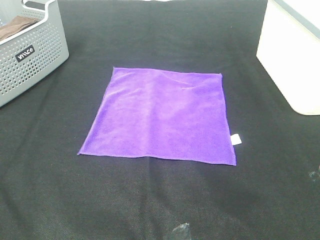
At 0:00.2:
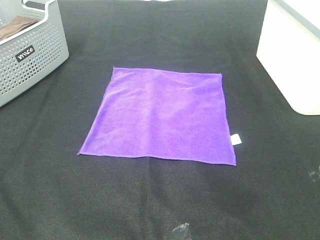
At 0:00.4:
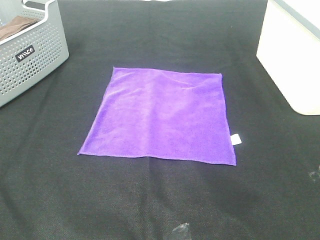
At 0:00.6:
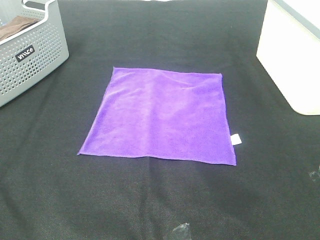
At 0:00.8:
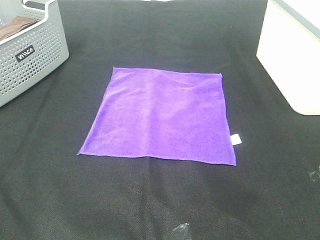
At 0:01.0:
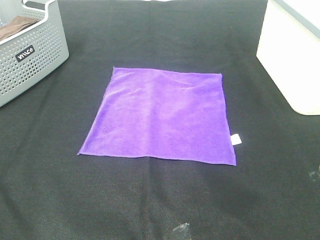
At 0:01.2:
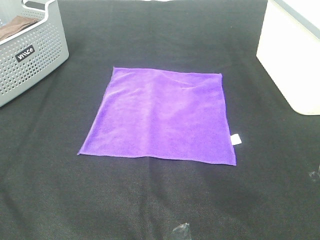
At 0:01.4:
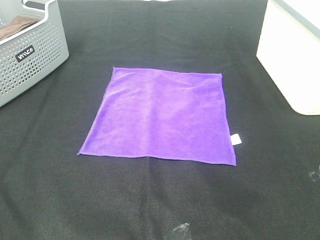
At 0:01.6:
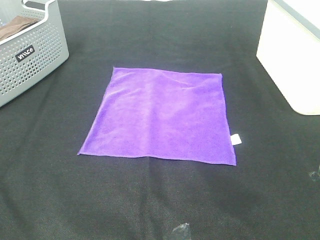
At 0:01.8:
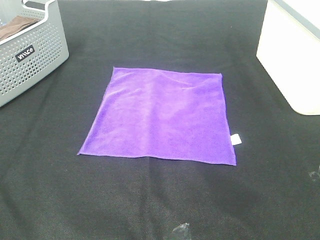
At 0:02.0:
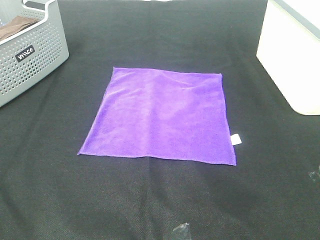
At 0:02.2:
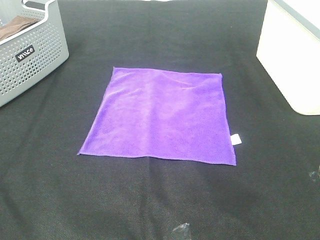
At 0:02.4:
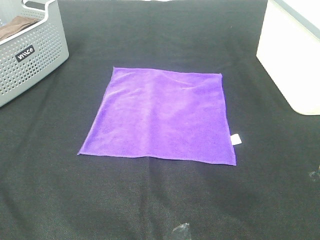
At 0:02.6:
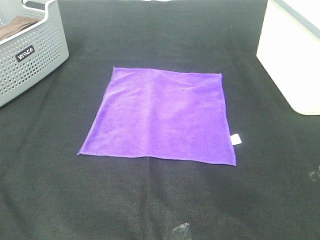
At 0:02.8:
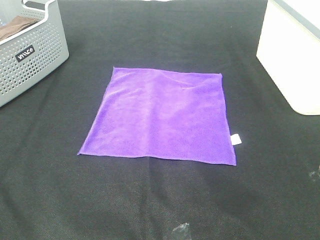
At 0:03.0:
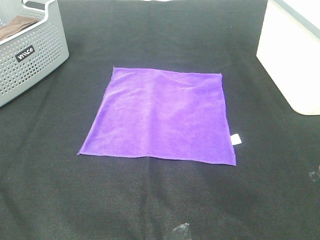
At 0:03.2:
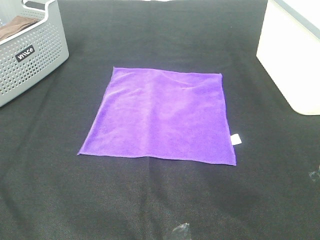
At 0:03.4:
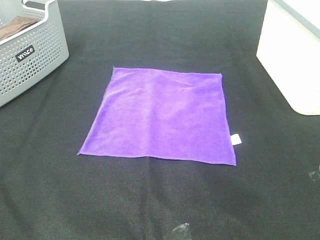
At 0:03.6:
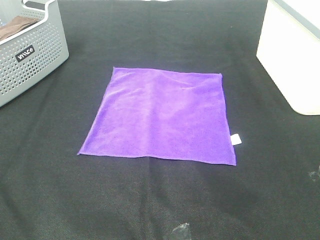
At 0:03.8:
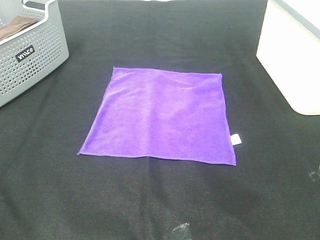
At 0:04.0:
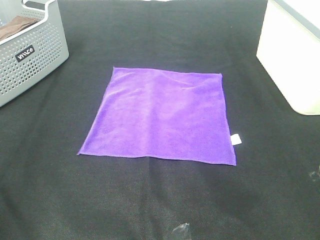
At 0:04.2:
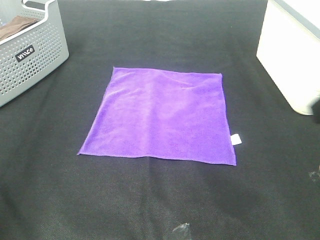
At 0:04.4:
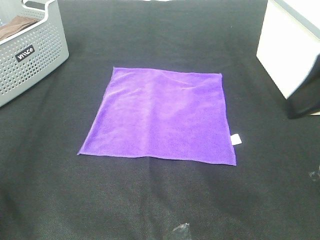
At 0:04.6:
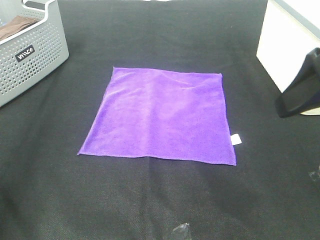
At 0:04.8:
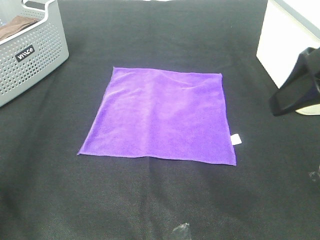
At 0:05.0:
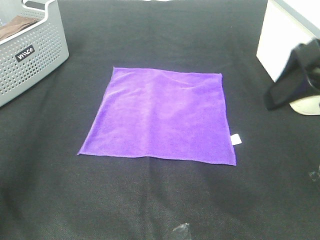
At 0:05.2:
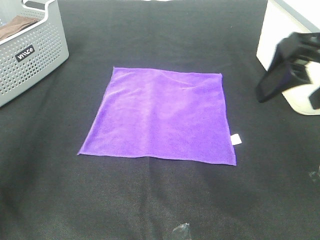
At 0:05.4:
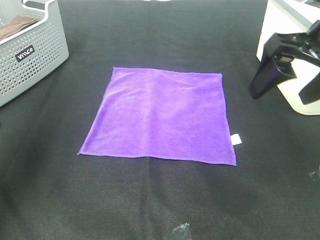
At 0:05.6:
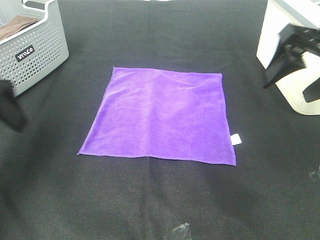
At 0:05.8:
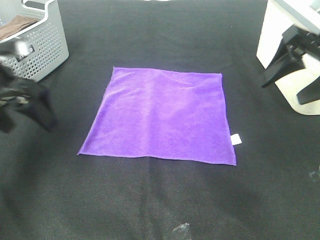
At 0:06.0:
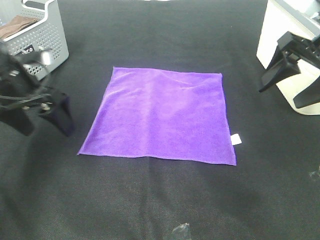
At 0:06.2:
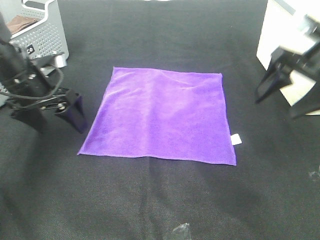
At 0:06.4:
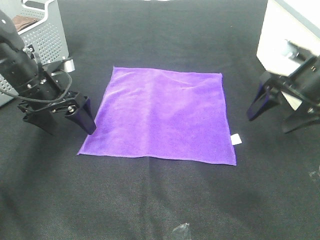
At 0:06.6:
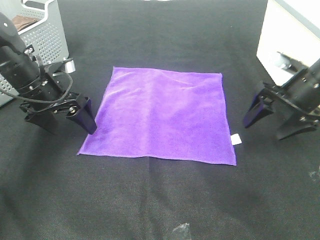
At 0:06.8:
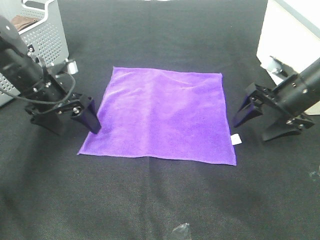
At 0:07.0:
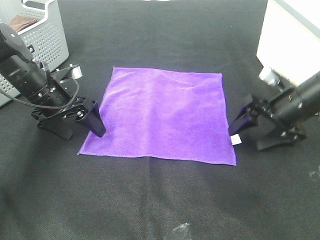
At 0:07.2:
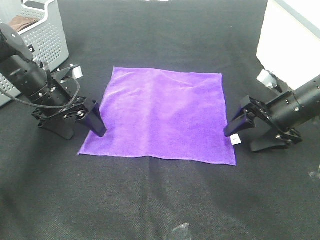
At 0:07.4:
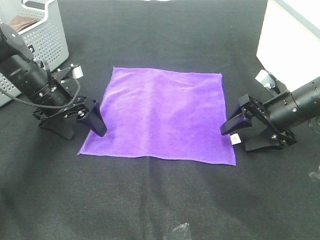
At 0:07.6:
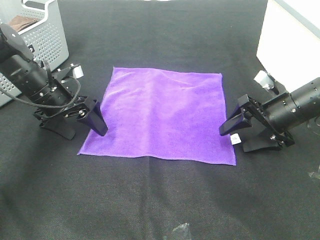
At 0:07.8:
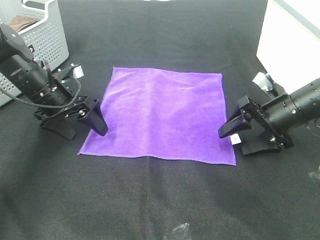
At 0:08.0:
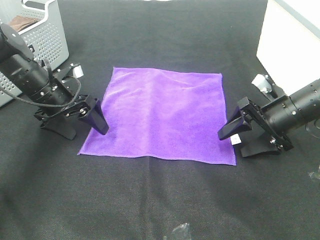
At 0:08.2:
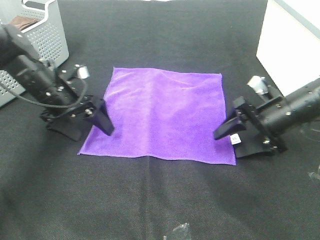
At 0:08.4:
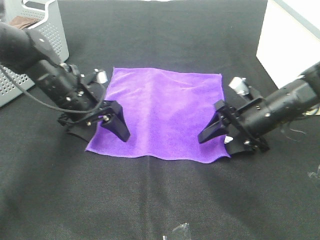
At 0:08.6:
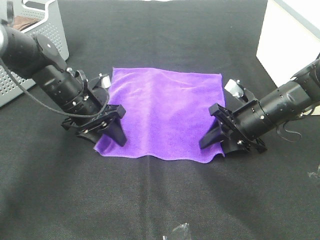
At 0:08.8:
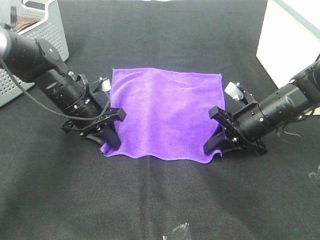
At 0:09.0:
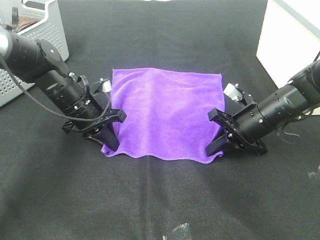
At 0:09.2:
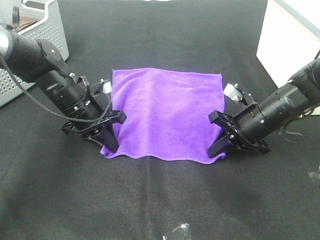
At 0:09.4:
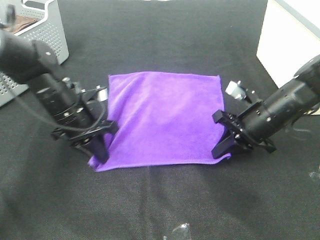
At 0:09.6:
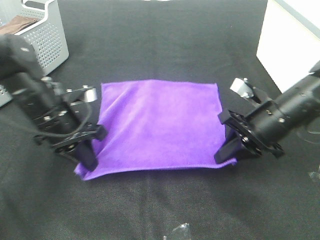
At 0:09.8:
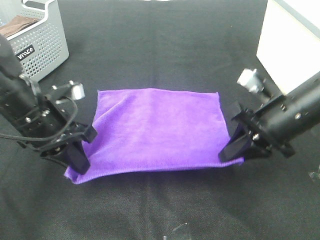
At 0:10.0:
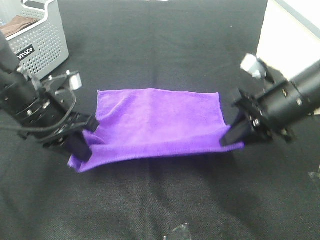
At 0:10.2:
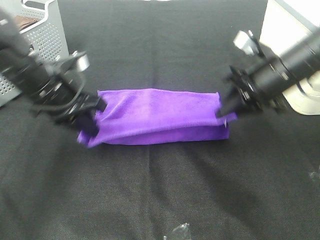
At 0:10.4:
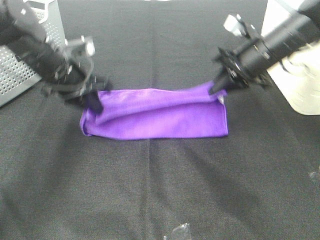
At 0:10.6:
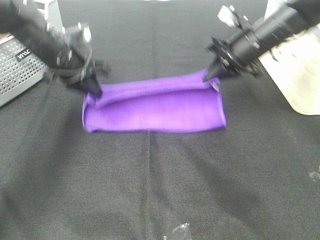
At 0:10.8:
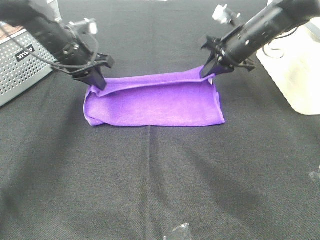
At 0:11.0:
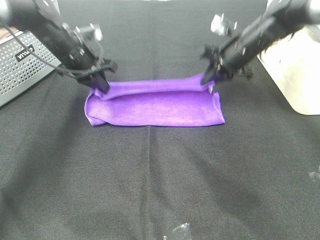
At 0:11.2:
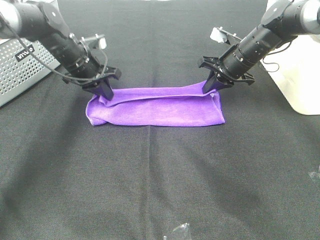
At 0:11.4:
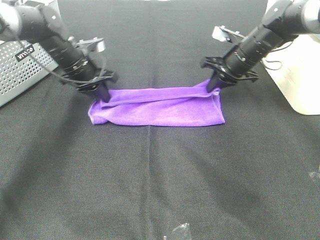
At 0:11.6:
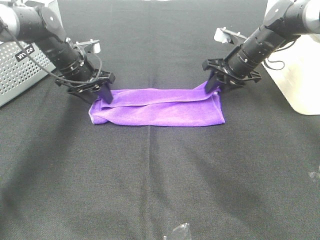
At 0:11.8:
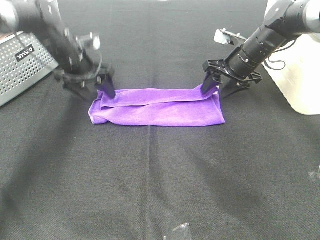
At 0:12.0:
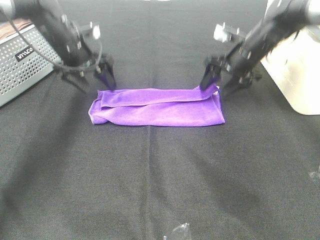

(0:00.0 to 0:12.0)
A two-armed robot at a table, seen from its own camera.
Task of the whole recording: Fold towels.
Step, 0:00.0 - 0:08.8: Left hand: grab the bottom left corner of purple towel.
Step, 0:00.0 - 0:08.8: Right hand: grab the bottom right corner of purple towel.
Step, 0:09.0 - 0:11.4: Left hand: fold the purple towel up.
Step, 0:09.0 - 0:11.4: Right hand: fold the purple towel up.
0:00.0 - 0:03.0: The two grippers keep their place.
0:03.0 - 0:04.4: The right gripper is displaced forward by roughly 15 cm, while the left gripper travels forward and upward by roughly 15 cm.
0:04.4 - 0:06.0: The right gripper travels forward and downward by roughly 15 cm, while the left gripper goes about 25 cm forward and downward.
0:06.0 - 0:07.6: The left gripper shifts some 5 cm downward. The right gripper goes some 15 cm downward.
0:07.6 - 0:09.0: The right gripper moves to the left, about 5 cm, and closes. The left gripper shifts some 5 cm to the right, and closes its fingers.
0:09.0 - 0:10.4: The left gripper travels upward by about 10 cm, and reaches about 10 cm backward, then returns. Meanwhile the right gripper moves upward and forward, about 15 cm.
0:10.4 - 0:12.0: The grippers both shift forward by approximately 10 cm. The right gripper opens; the left gripper opens.

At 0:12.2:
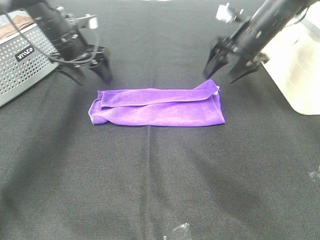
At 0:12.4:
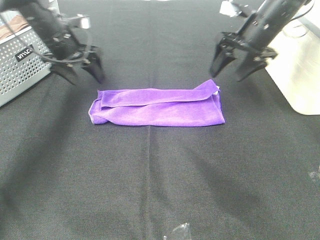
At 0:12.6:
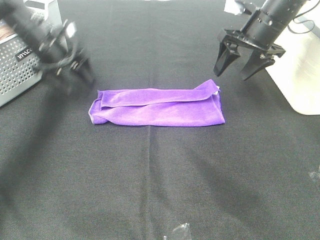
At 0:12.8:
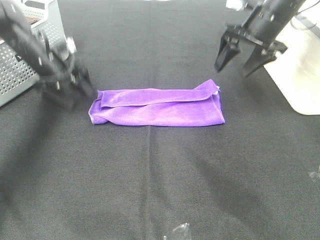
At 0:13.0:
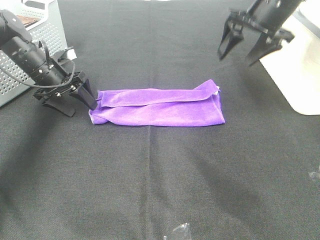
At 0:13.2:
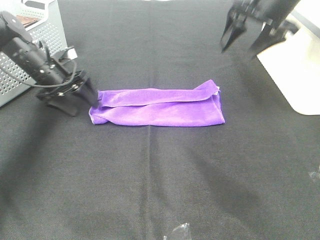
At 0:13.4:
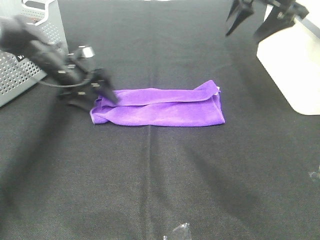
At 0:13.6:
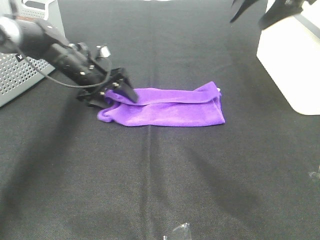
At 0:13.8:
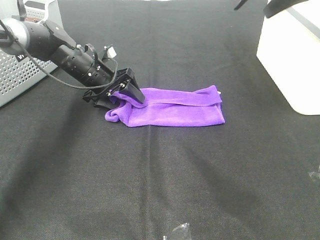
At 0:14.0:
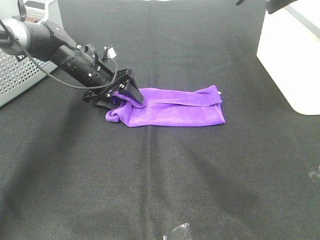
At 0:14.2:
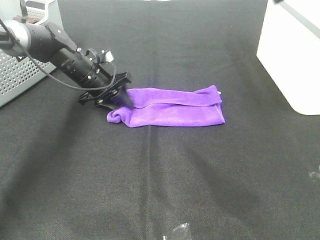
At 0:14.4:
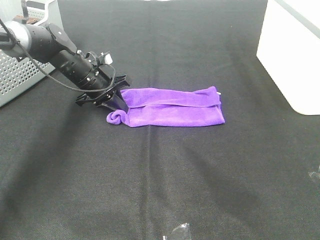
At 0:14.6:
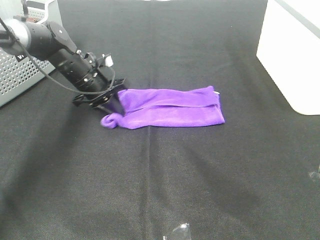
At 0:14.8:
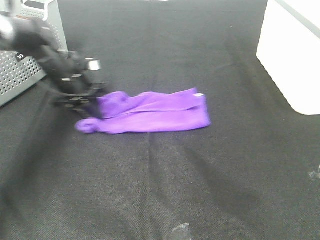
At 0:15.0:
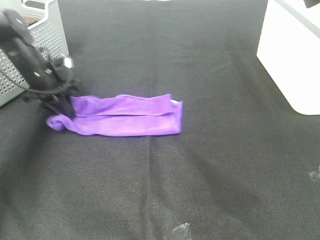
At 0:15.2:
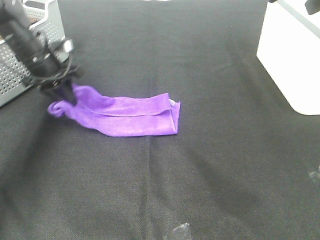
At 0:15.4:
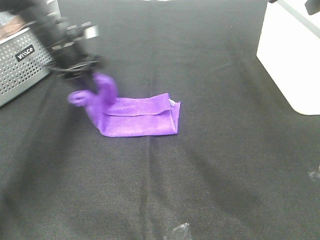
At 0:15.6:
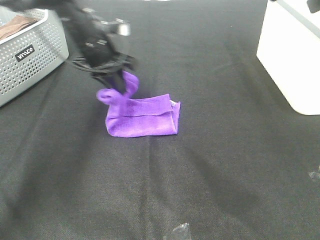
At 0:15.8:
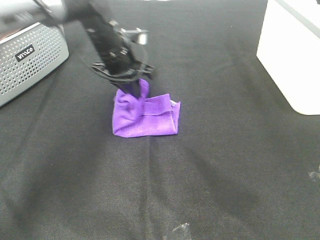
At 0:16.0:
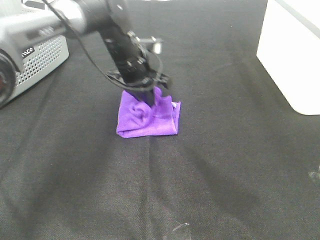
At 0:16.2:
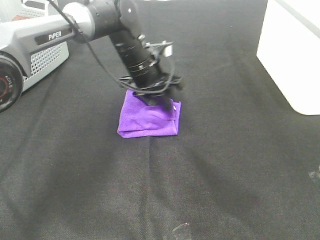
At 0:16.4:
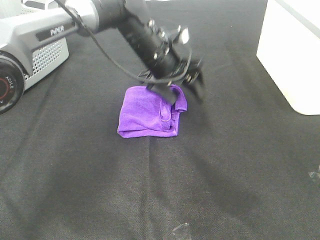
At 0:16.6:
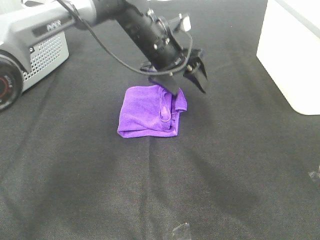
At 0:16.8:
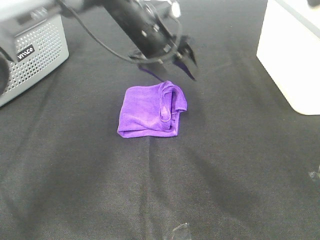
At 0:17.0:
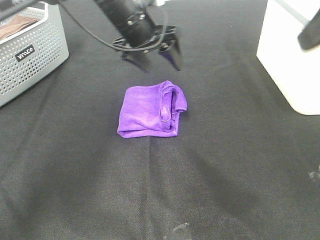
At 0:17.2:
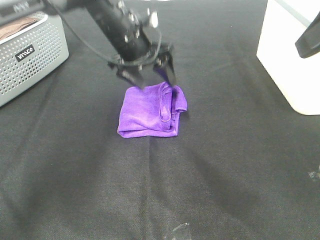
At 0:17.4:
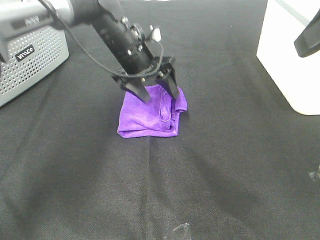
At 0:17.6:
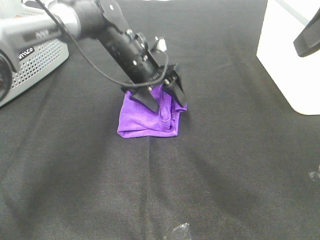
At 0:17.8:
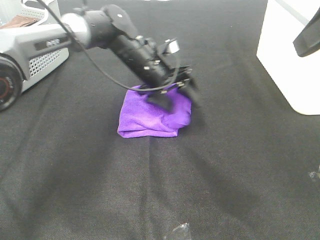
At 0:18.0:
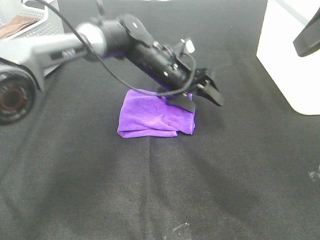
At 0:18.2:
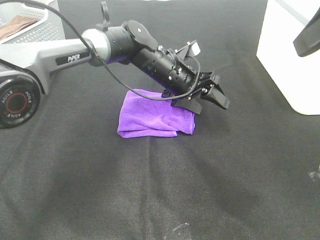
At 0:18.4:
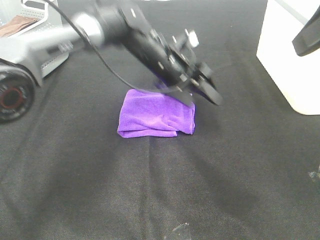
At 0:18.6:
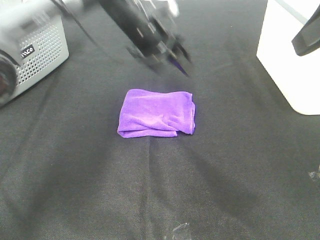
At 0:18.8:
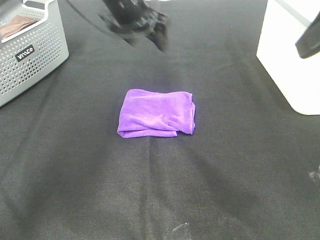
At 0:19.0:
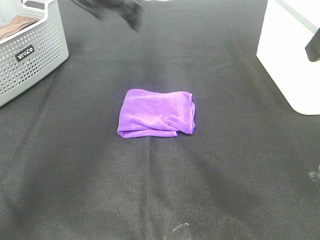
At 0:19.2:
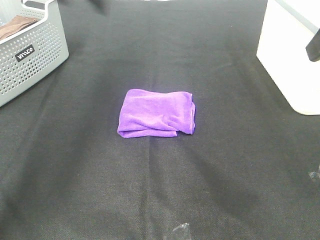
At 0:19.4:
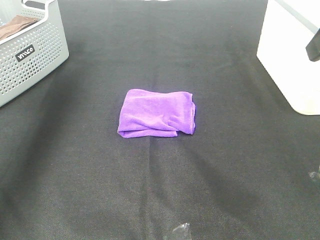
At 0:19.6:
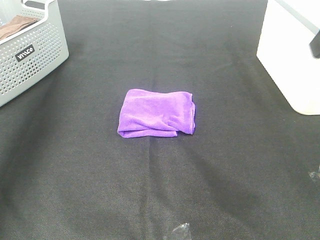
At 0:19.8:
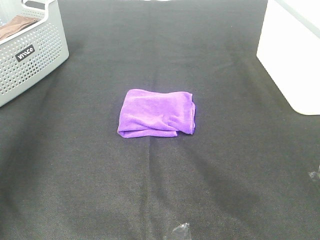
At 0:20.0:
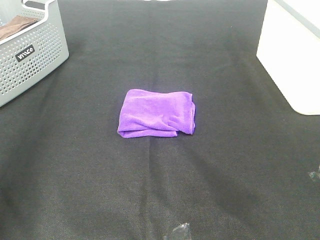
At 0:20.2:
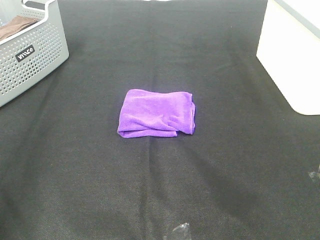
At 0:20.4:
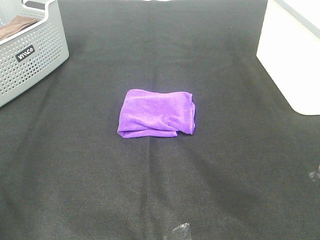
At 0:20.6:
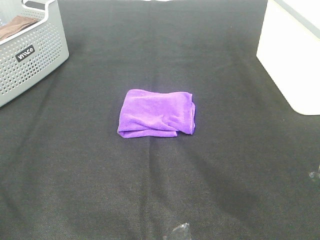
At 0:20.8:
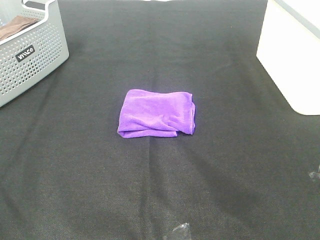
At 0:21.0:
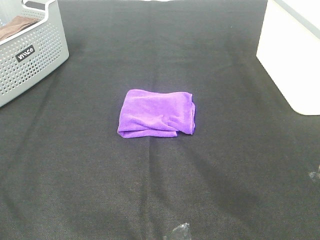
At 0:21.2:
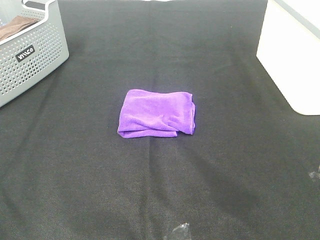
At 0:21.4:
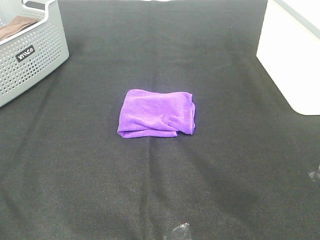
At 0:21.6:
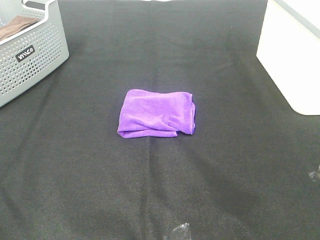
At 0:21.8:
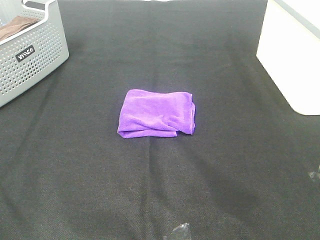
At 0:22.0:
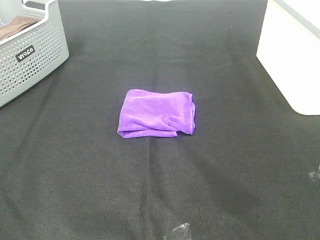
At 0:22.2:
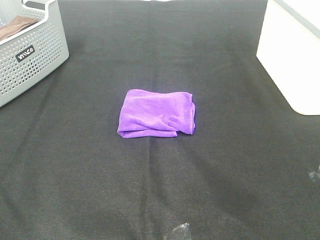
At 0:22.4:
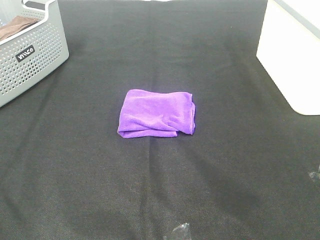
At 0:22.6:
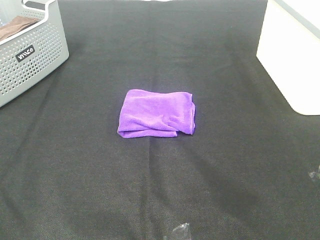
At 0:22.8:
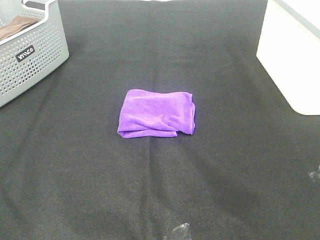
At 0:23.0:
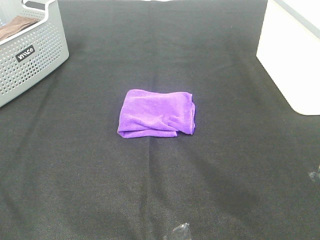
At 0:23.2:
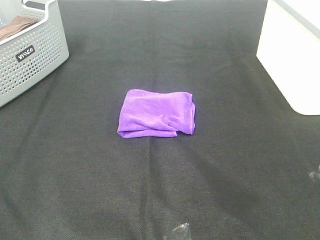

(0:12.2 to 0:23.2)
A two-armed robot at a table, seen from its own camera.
Task of the whole recording: Fold towels.
Step, 0:12.2 - 0:16.0: Left hand: fold the purple towel from left to right.
0:12.2 - 0:13.8: The right gripper shifts approximately 15 cm upward. Meanwhile the left gripper moves downward, about 10 cm.
0:13.8 - 0:15.4: The left gripper is displaced upward by roughly 10 cm, and closes its fingers; the right gripper goes some 10 cm backward.
0:15.4 - 0:17.0: The left gripper heads to the right, covering approximately 10 cm, and opens up; the right gripper goes about 10 cm backward.
0:17.0 - 0:18.4: The left gripper shifts some 10 cm downward and to the right.
0:18.4 - 0:20.0: The left gripper shifts approximately 50 cm to the left, backward and upward, while the right gripper is displaced backward by some 10 cm.
0:20.0 - 0:21.6: The left gripper moves backward, some 20 cm.
0:21.6 - 0:23.2: The two grippers keep their place.
